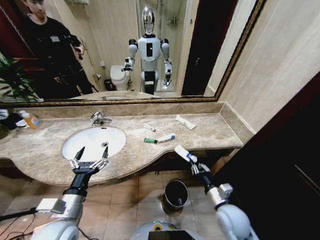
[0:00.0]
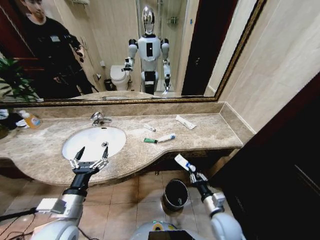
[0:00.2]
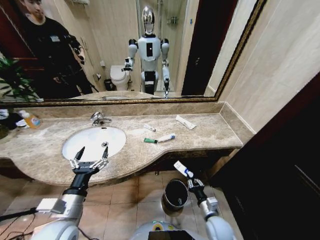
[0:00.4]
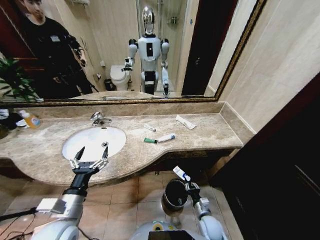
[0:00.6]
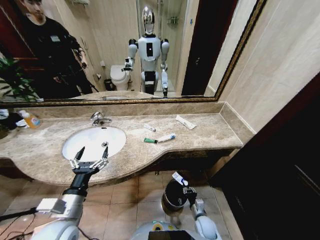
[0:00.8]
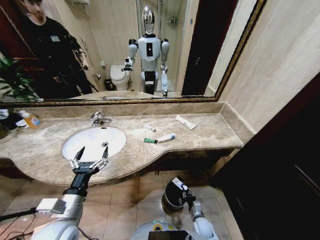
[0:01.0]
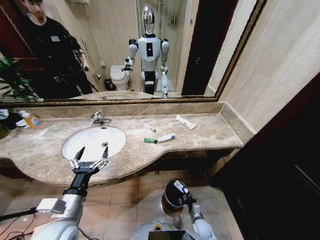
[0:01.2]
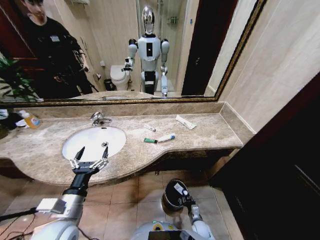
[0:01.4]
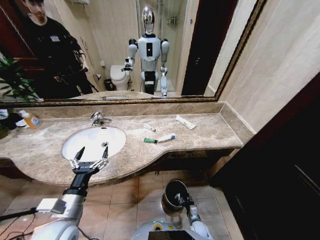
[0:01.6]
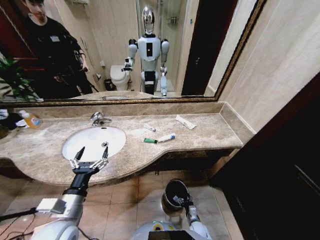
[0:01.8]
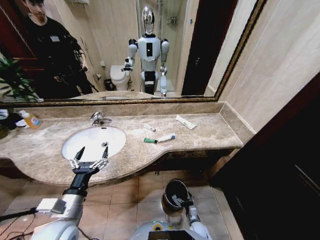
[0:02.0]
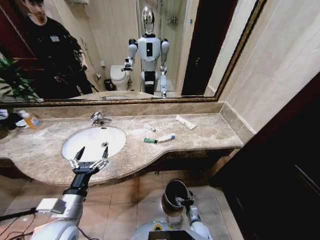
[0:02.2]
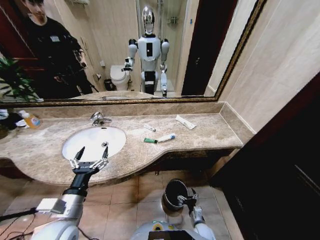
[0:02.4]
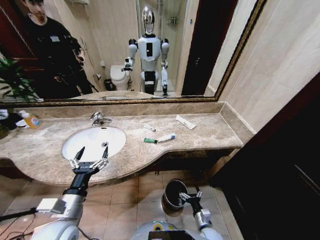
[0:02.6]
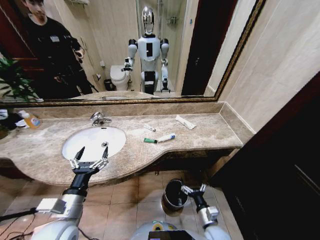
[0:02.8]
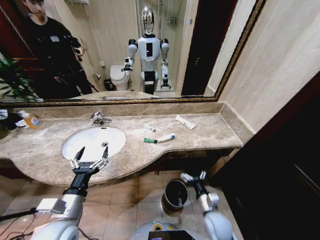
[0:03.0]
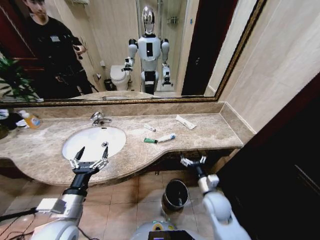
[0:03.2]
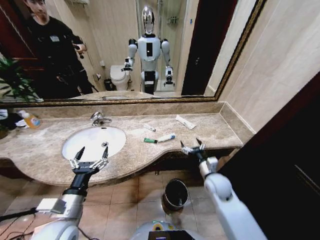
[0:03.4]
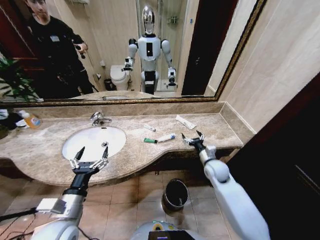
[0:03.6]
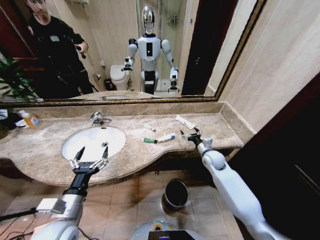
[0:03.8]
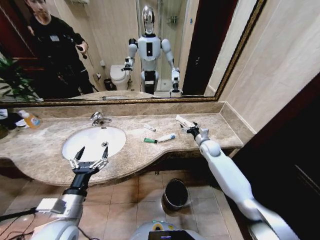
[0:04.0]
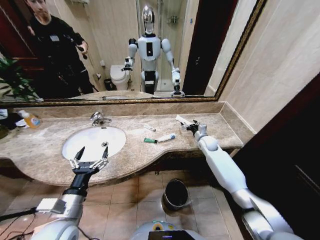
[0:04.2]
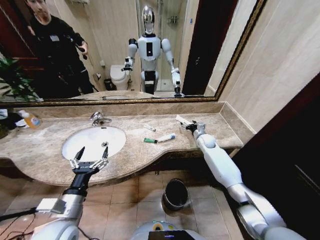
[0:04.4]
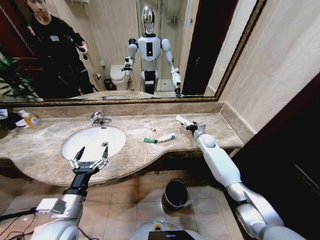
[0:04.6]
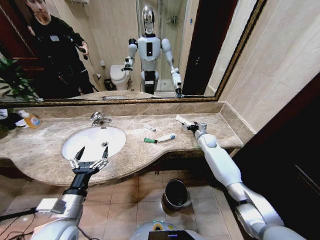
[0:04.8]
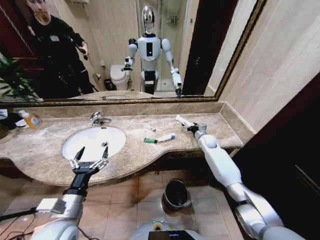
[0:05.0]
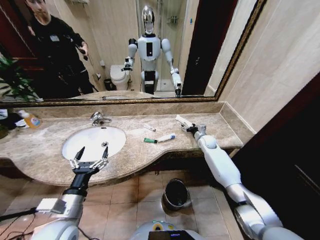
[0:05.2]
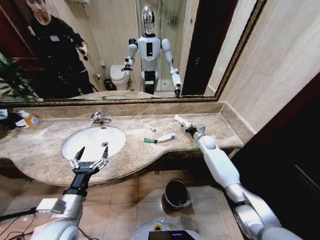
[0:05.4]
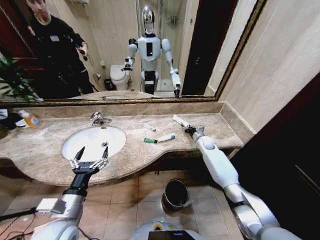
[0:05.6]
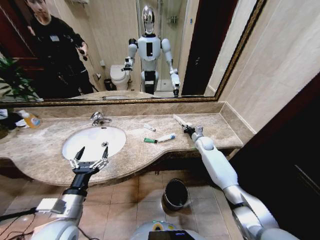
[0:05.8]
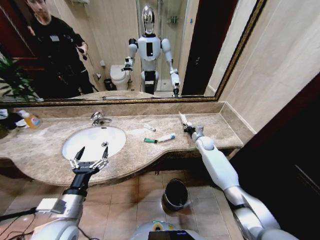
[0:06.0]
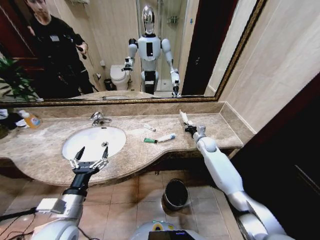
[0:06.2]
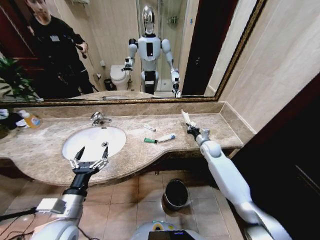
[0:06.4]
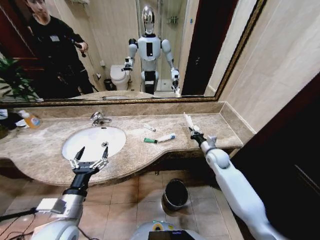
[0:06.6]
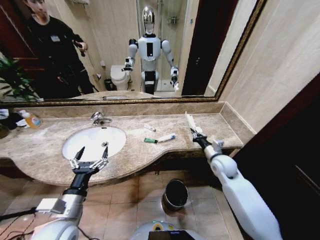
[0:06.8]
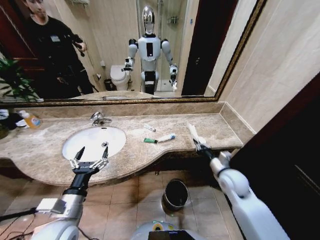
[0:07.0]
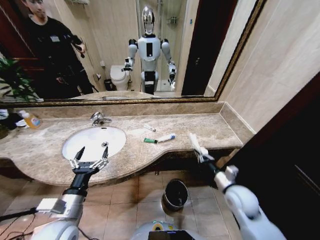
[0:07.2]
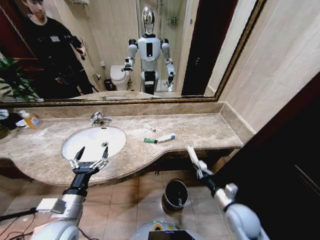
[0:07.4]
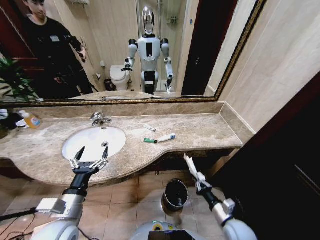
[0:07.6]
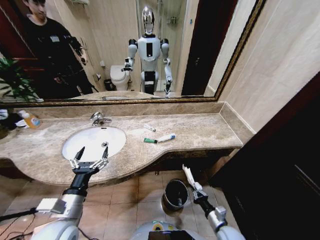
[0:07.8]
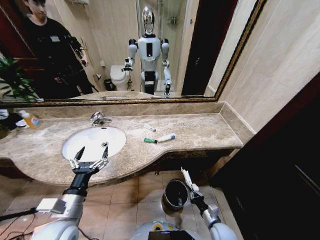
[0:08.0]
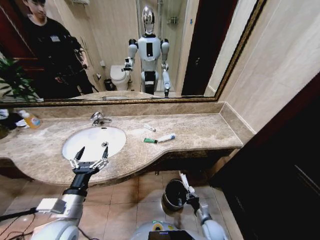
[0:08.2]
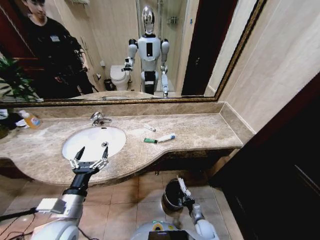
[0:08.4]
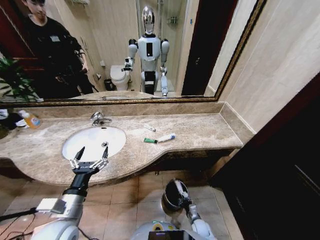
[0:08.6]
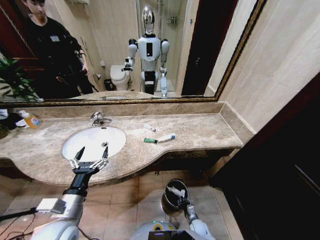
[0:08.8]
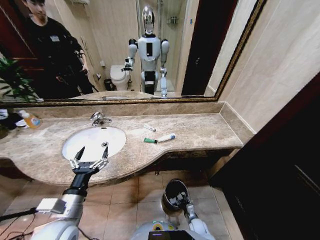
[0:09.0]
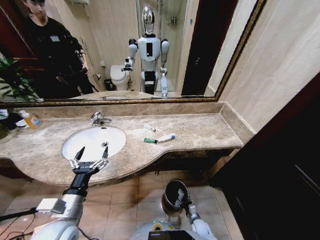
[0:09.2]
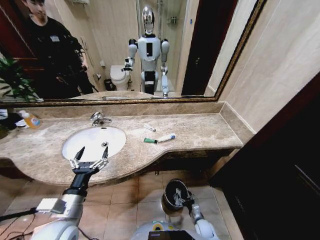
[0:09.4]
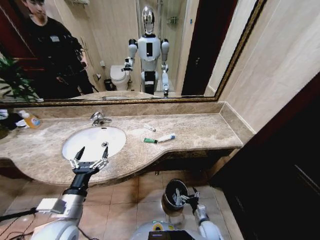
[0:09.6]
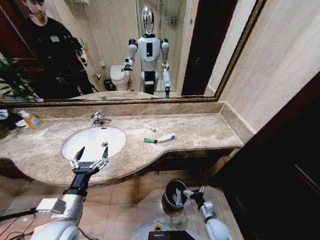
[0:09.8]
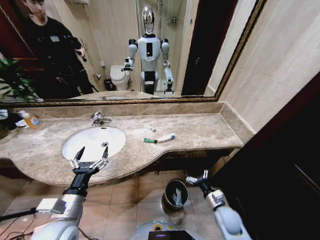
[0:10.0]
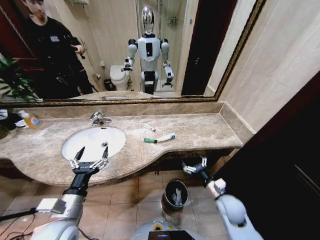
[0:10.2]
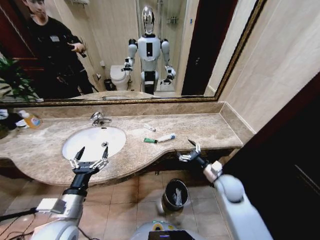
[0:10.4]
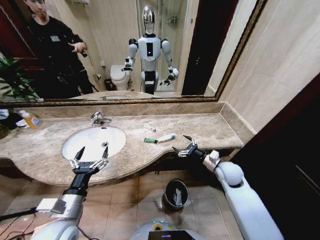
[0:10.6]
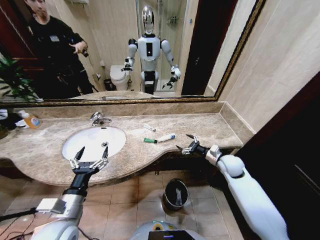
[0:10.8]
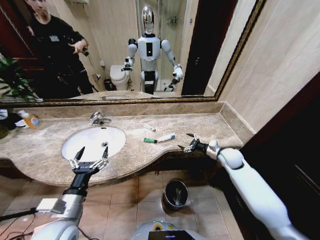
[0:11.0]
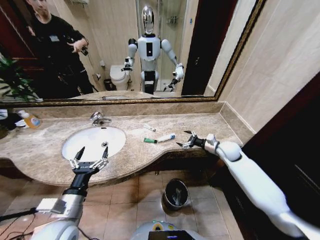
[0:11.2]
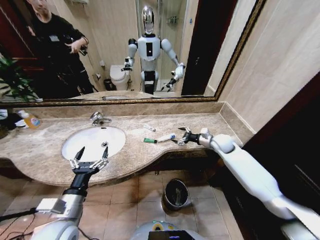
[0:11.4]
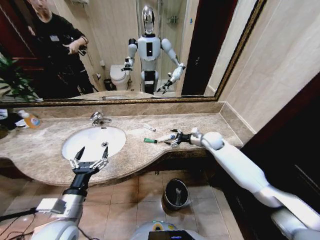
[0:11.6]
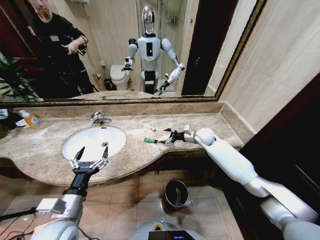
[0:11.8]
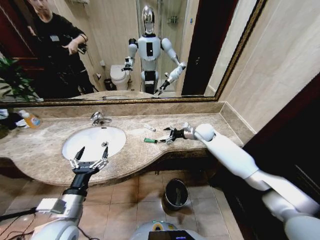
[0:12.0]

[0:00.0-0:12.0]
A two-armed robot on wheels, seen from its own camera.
Task of the whole recording: Pick up the trash from the sink and place it in the trash bin.
0:00.0 to 0:01.6: The right gripper moves downward, some 30 cm.
0:01.6 to 0:03.0: The right gripper travels upward by roughly 25 cm, and opens up.
0:03.0 to 0:04.4: The right gripper shifts approximately 35 cm forward.
0:04.4 to 0:06.0: The right gripper closes its fingers.
0:06.0 to 0:07.6: The right gripper heads backward, covering about 40 cm.
0:07.6 to 0:09.0: The right gripper is displaced downward by approximately 25 cm, and opens.
0:09.0 to 0:10.4: The right gripper goes roughly 35 cm upward, and opens its fingers.
0:10.4 to 0:12.0: The right gripper heads forward, covering roughly 20 cm.

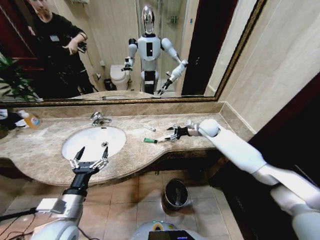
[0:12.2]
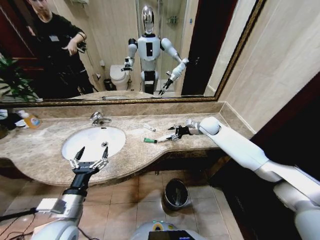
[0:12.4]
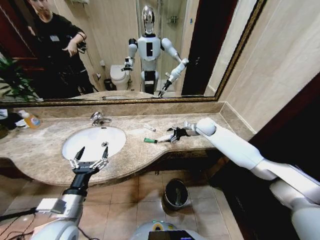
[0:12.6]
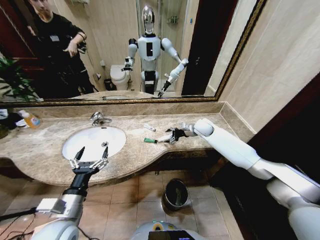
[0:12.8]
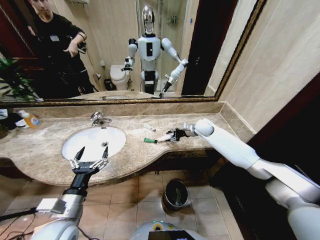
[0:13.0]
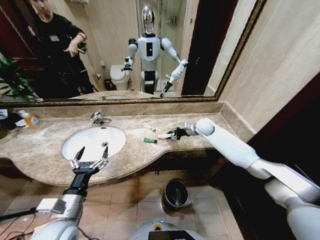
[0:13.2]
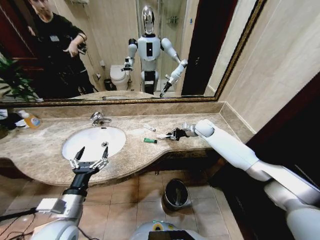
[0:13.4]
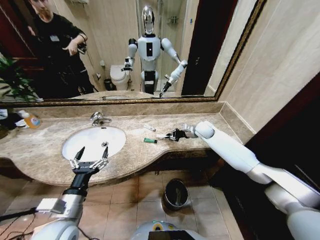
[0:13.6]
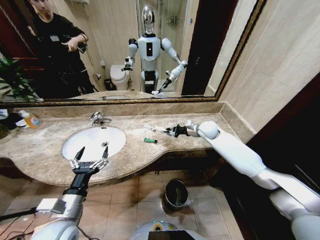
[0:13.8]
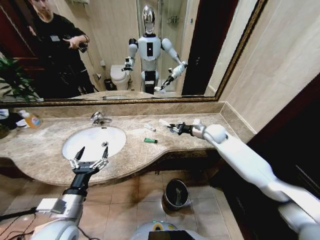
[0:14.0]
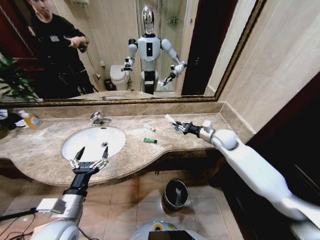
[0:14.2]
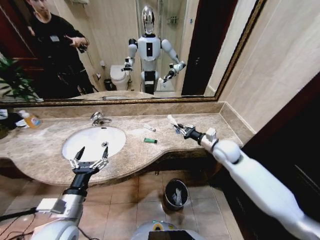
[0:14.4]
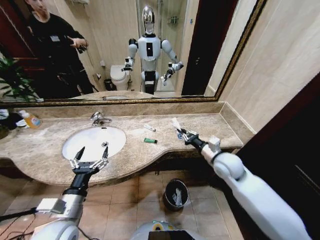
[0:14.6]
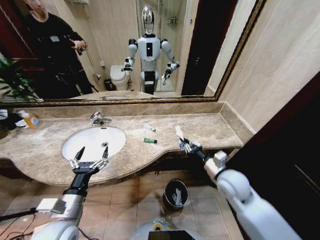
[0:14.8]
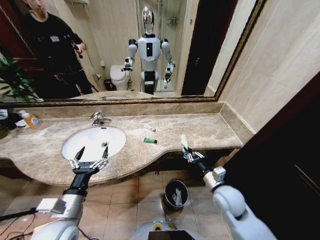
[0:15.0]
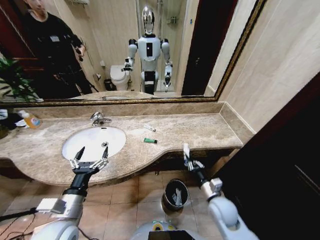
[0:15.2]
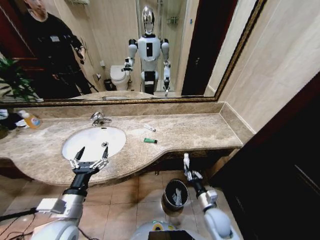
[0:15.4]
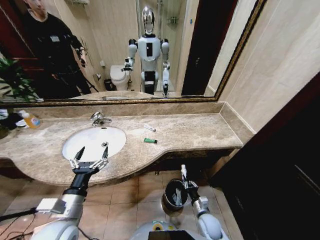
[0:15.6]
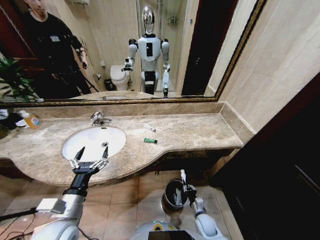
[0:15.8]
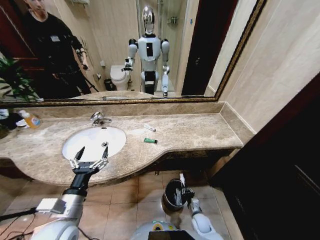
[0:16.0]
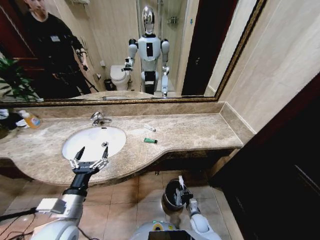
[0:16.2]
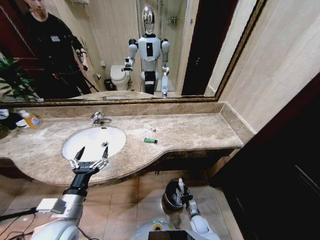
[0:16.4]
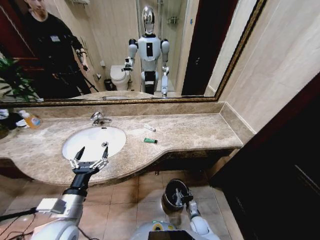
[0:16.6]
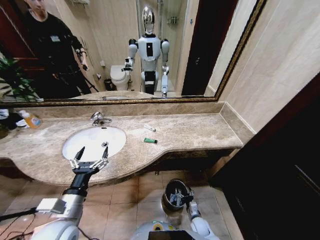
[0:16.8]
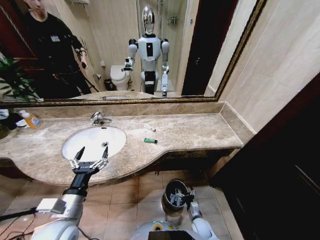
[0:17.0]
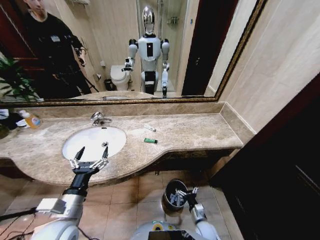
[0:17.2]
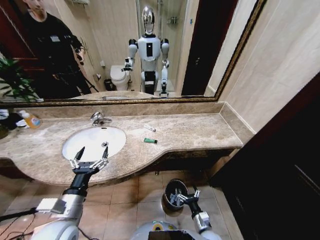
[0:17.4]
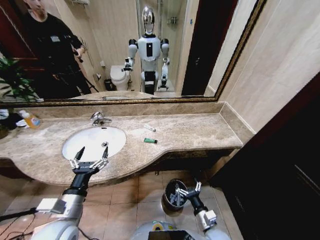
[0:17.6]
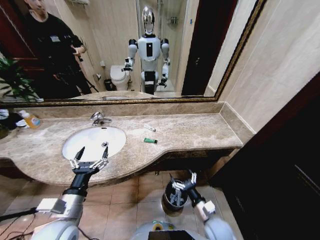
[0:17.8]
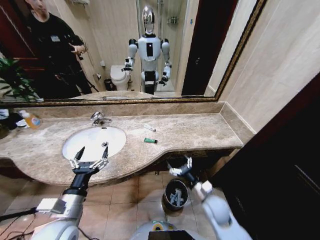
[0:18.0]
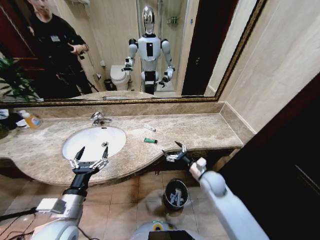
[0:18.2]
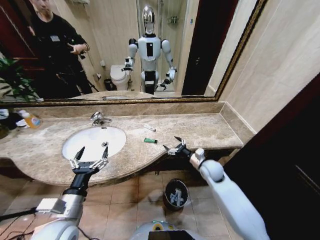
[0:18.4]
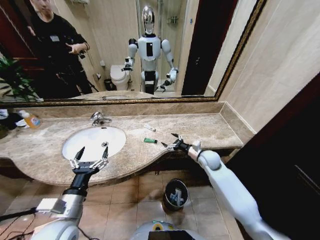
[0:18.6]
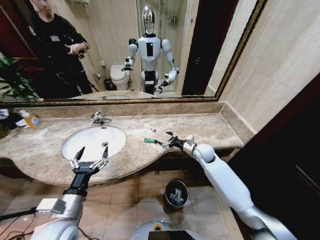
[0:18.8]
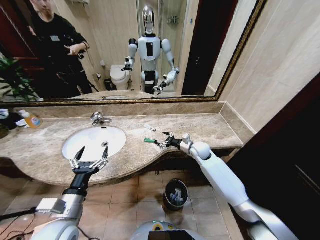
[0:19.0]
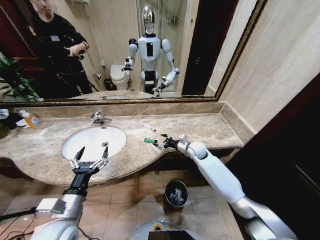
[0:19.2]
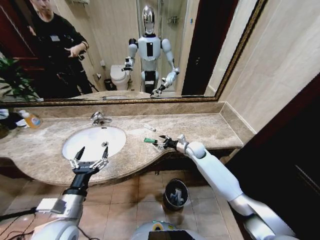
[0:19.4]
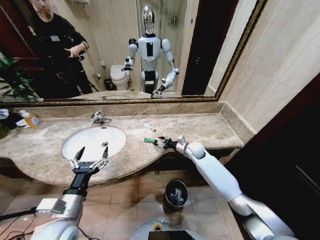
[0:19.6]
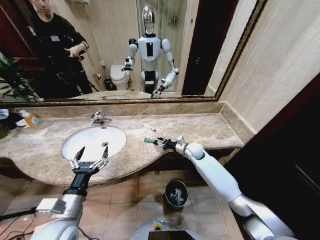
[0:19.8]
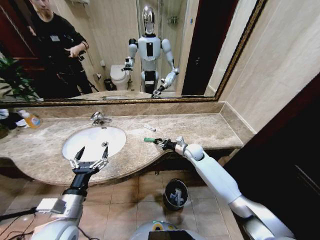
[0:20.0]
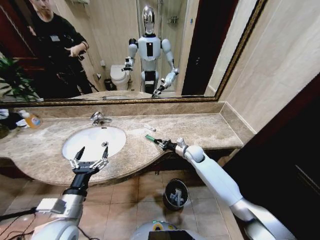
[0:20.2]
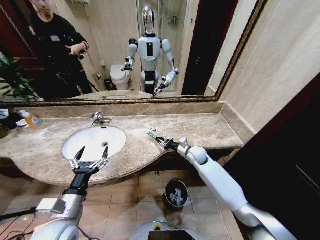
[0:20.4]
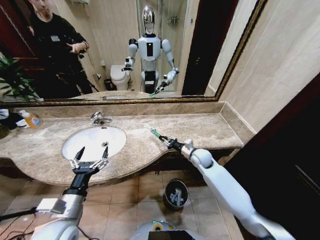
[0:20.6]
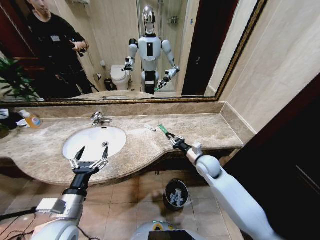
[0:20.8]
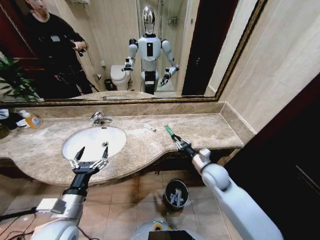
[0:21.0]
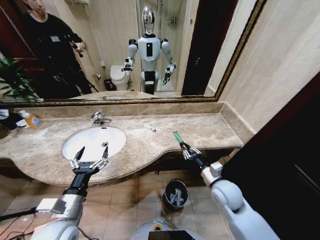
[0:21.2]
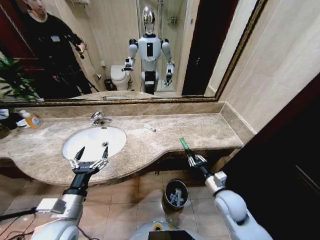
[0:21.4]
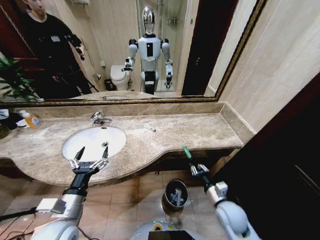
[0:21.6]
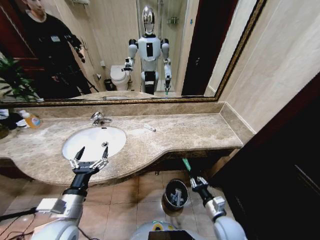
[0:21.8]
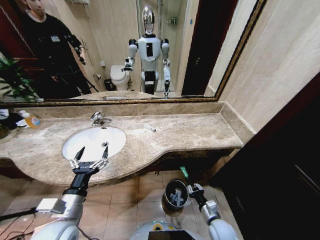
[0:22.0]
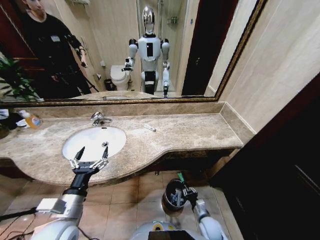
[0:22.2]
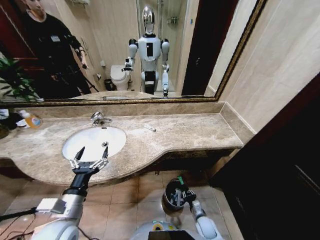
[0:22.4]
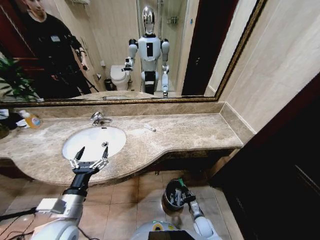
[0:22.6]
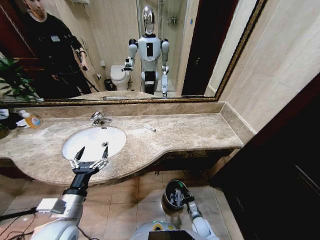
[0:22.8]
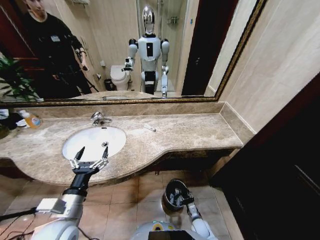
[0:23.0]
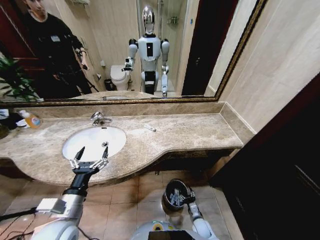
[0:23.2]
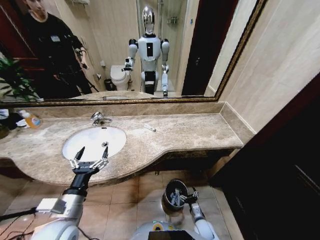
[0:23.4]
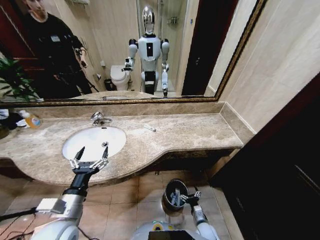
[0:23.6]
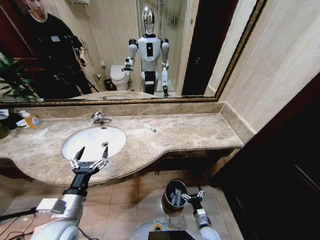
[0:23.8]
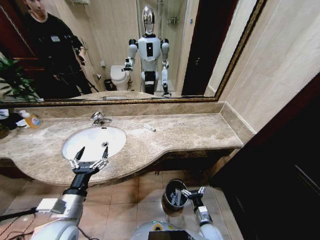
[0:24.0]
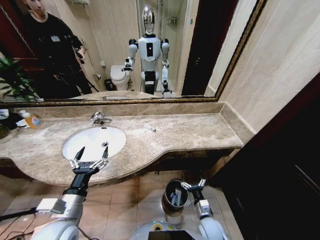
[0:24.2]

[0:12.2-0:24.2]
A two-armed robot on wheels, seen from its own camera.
Task of the whole recording: Pick up the trash from the sink and place it in the trash bin.
0:12.2 to 0:13.8: The right gripper closes its fingers.
0:13.8 to 0:15.2: The right gripper is displaced backward and downward by about 35 cm.
0:15.2 to 0:16.6: The right gripper shifts about 25 cm downward, and opens.
0:16.6 to 0:18.2: The right gripper goes about 30 cm upward, and opens up.
0:18.2 to 0:19.8: The right gripper moves forward, some 15 cm, and closes its fingers.
0:19.8 to 0:21.2: The right gripper is displaced backward by about 20 cm.
0:21.2 to 0:22.6: The right gripper travels downward by about 30 cm.
0:22.6 to 0:24.2: The right gripper goes about 15 cm upward, and opens.
